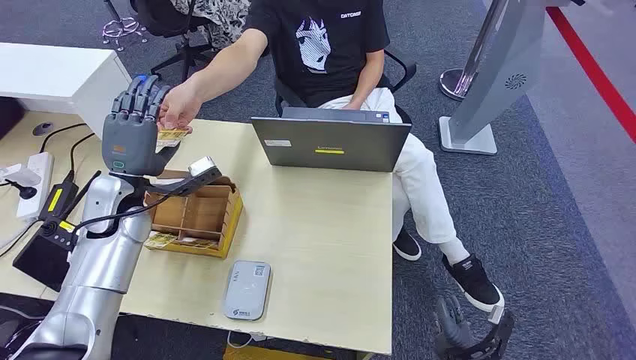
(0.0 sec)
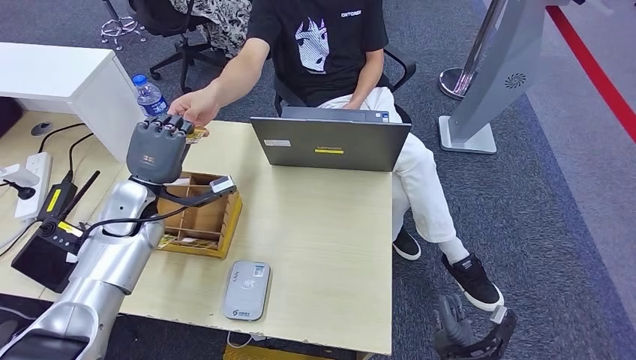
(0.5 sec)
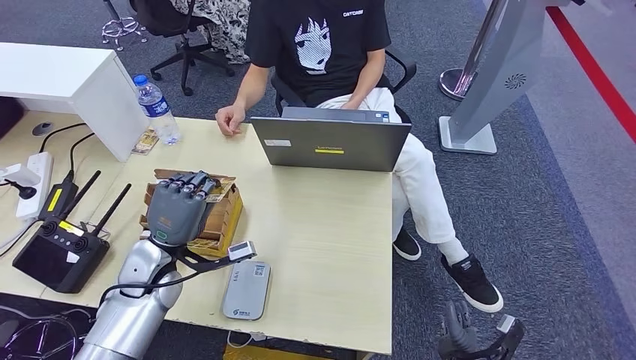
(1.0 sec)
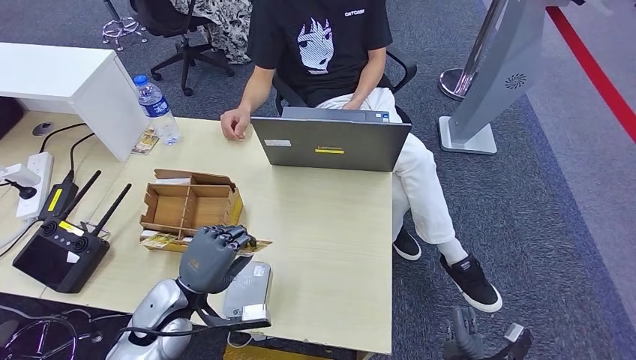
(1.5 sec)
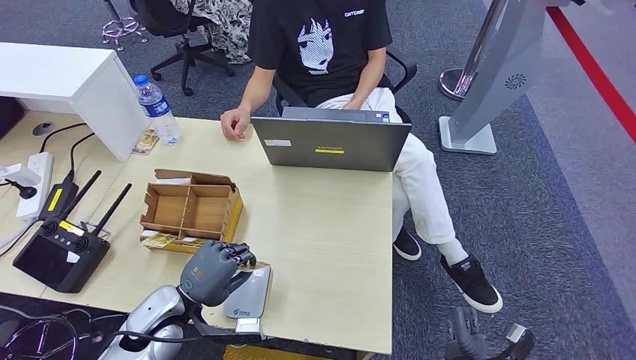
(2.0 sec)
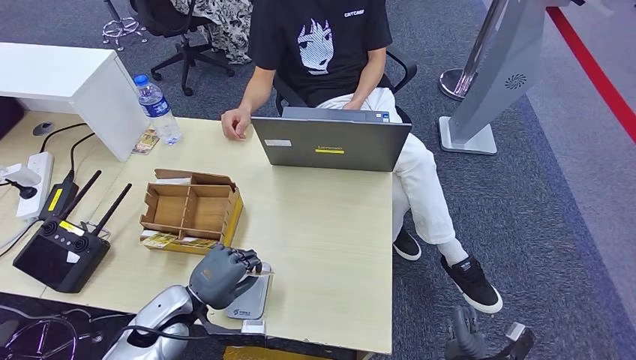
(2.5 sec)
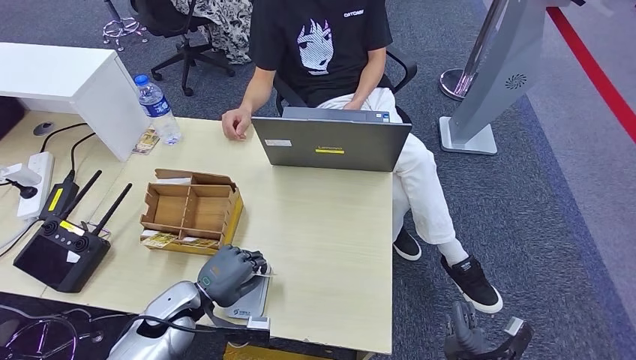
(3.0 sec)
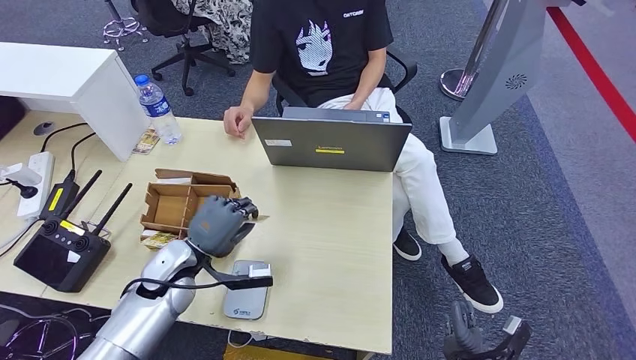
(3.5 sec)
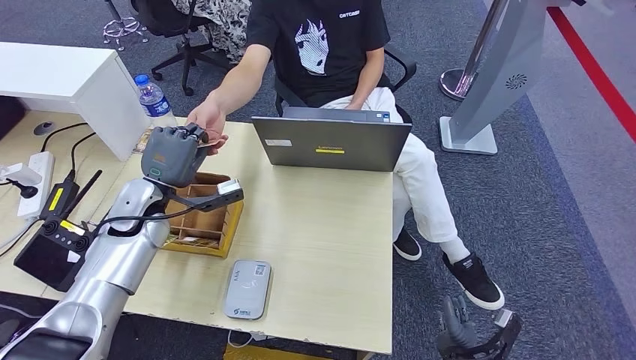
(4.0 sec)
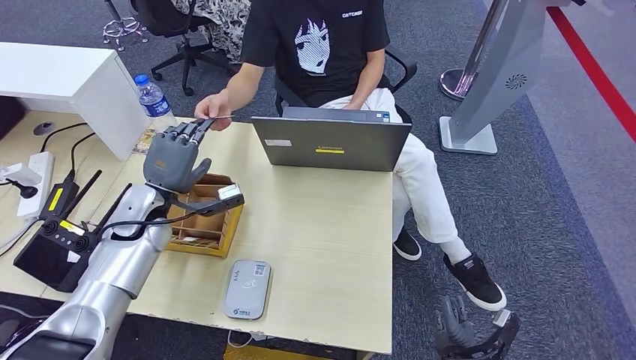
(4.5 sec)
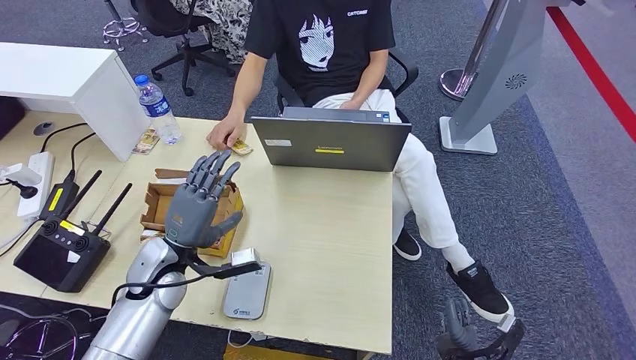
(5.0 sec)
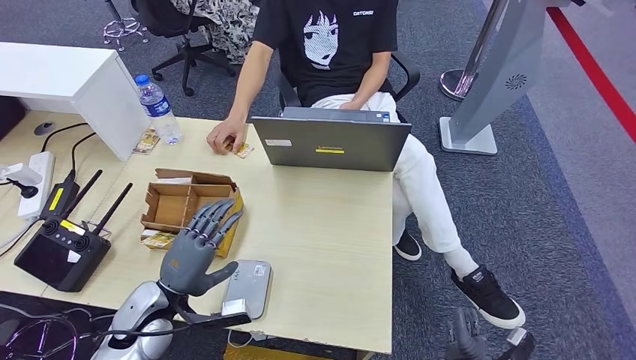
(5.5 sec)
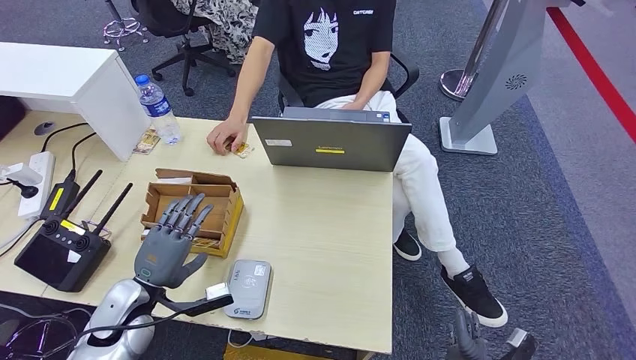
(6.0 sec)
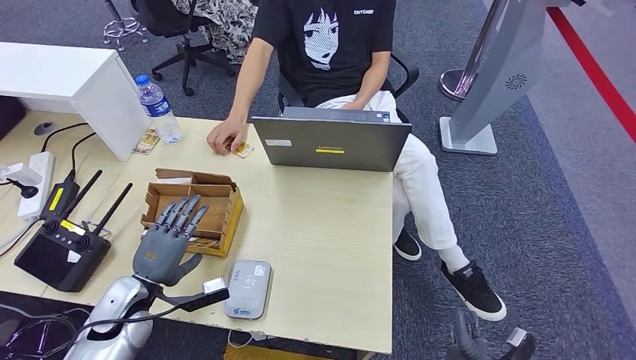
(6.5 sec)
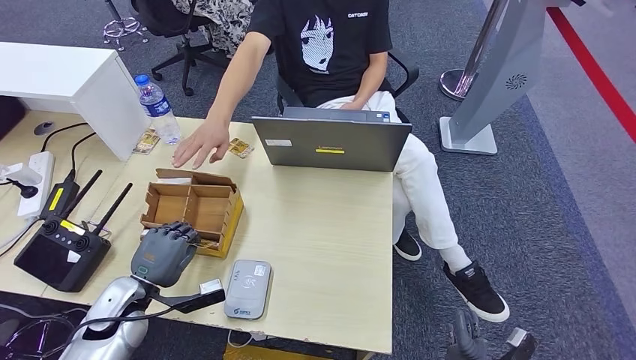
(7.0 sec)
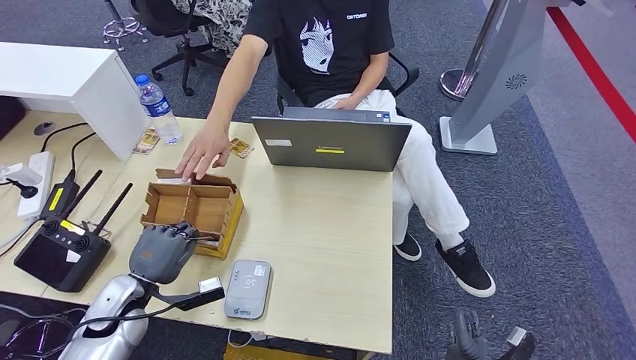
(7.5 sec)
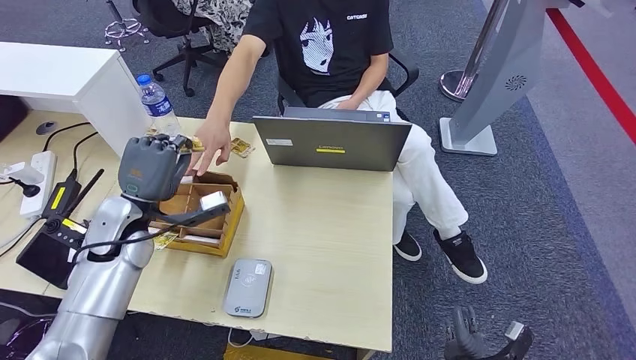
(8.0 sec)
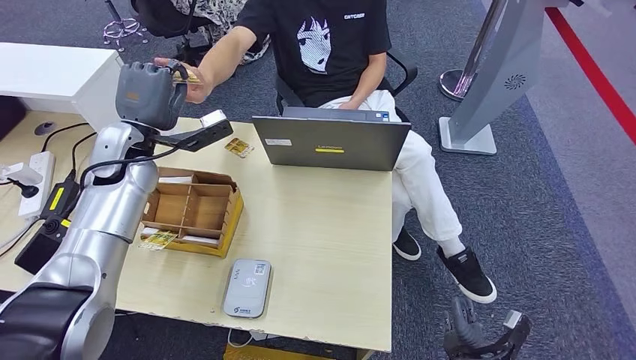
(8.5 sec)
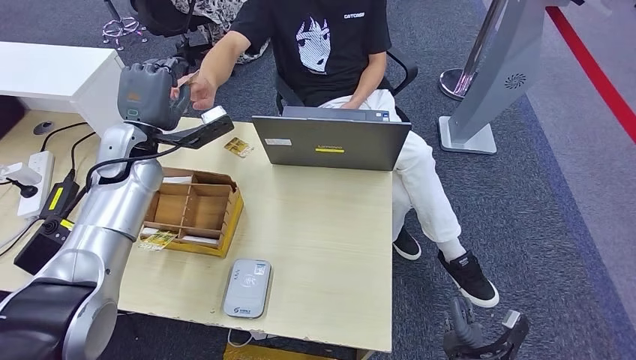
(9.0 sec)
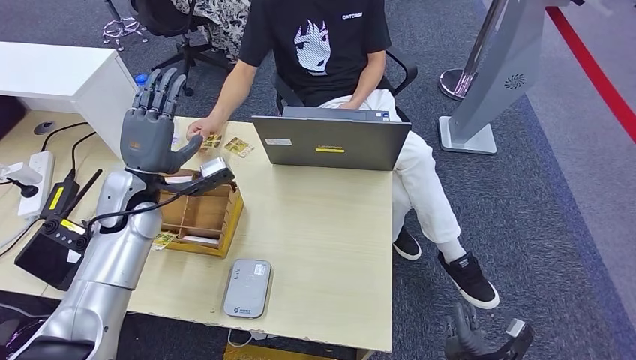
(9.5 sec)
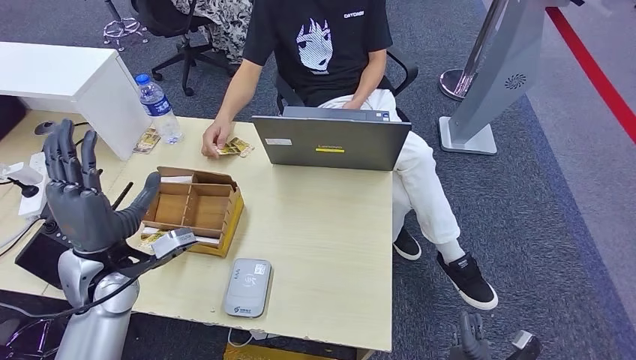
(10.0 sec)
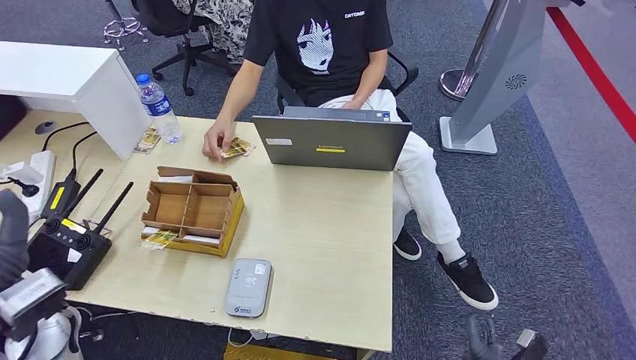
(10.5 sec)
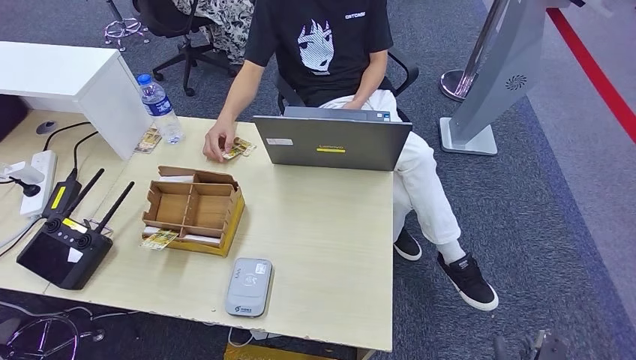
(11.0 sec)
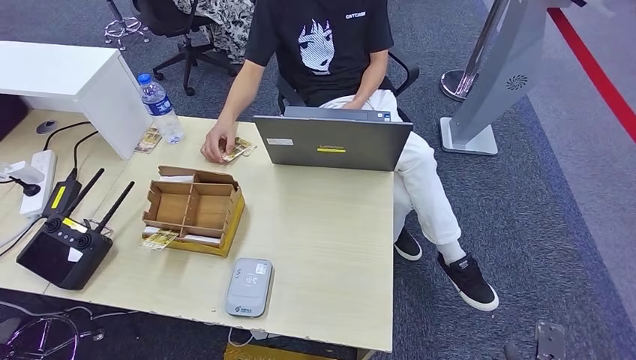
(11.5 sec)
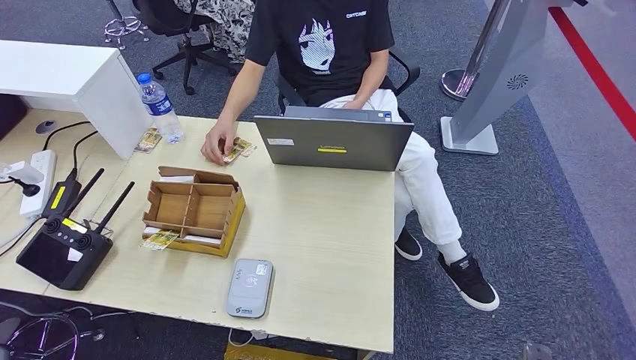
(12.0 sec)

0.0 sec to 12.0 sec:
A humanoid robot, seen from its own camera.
Step, 0.0 sec to 1.5 sec: Take the ID card from the person's hand.
Step, 2.0 sec to 3.0 sec: Place the ID card on the card reader.
Step, 3.5 sec to 5.5 sec: Hand the ID card to the person.
Step, 6.0 sec to 7.5 sec: Pick up the room key from the key card box.
Step, 8.0 sec to 12.0 sec: Hand the room key to the person.
2.0 sec to 4.0 sec: The left hand heads forward and upward, covering about 20 cm.
4.0 sec to 6.0 sec: The left hand goes approximately 20 cm backward and downward.
6.0 sec to 8.0 sec: The left hand is displaced forward and upward by some 15 cm.
8.0 sec to 10.0 sec: The left hand is displaced backward by some 5 cm.
10.0 sec to 12.0 sec: The right hand heads to the right and backward, covering about 10 cm. The left hand goes some 35 cm downward, to the left and backward.
